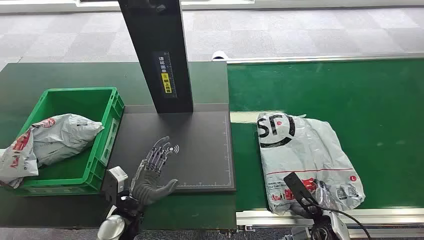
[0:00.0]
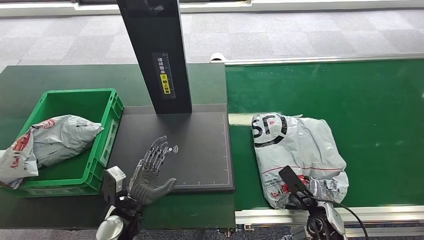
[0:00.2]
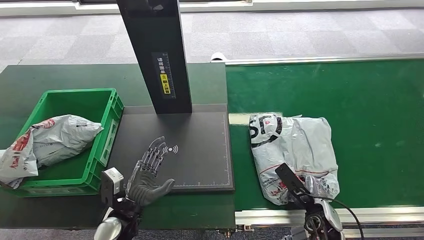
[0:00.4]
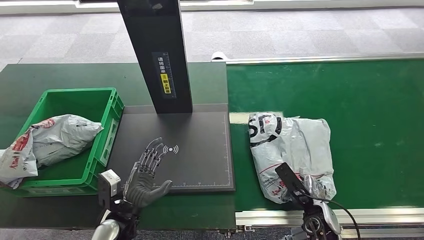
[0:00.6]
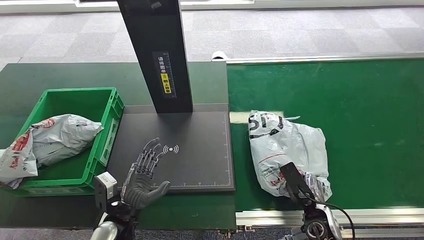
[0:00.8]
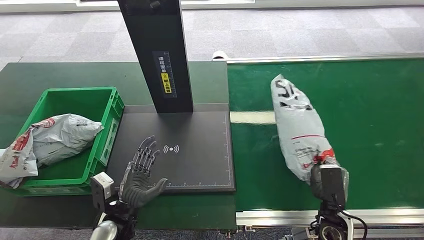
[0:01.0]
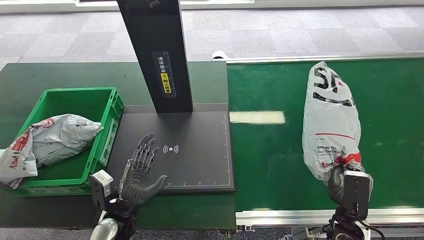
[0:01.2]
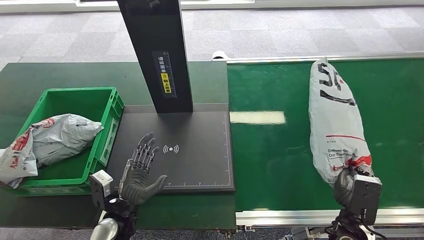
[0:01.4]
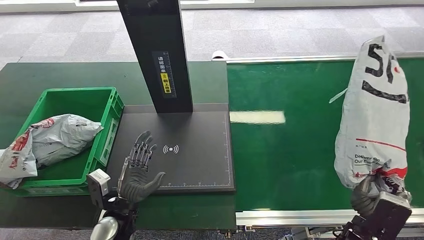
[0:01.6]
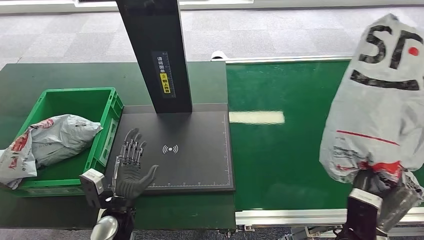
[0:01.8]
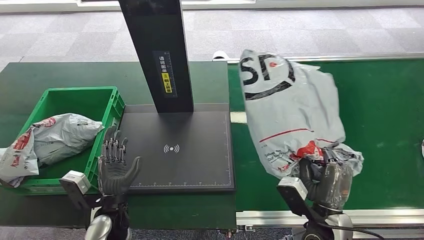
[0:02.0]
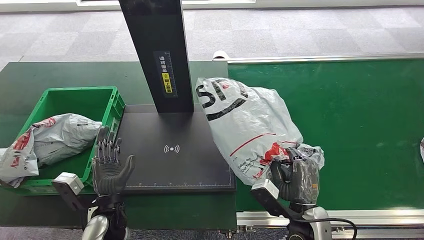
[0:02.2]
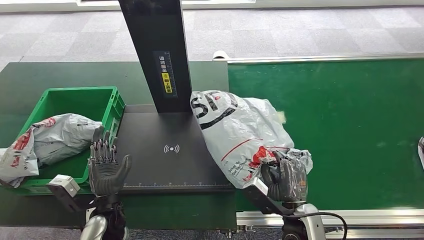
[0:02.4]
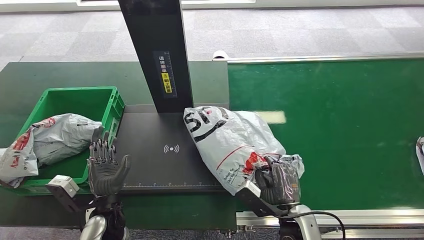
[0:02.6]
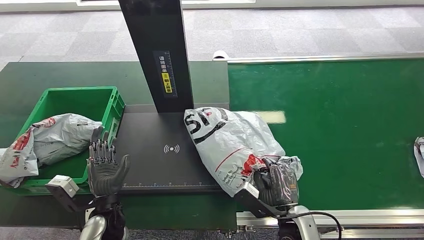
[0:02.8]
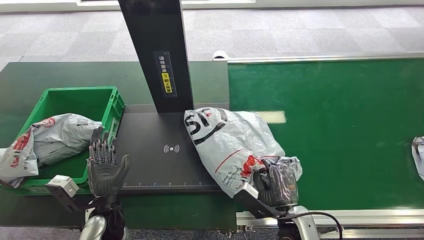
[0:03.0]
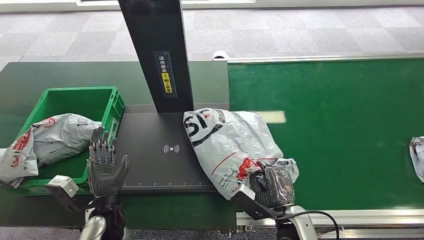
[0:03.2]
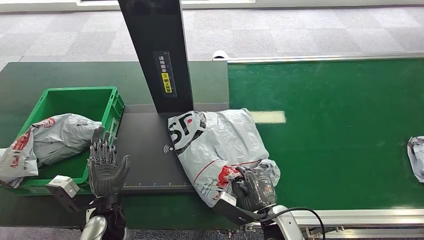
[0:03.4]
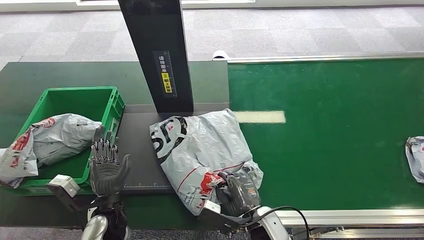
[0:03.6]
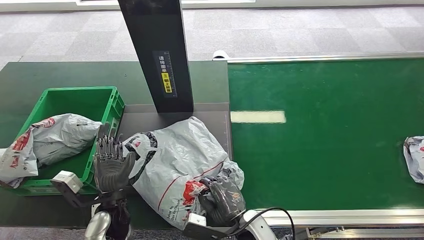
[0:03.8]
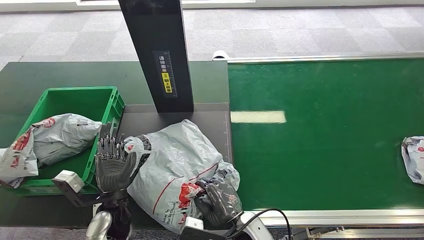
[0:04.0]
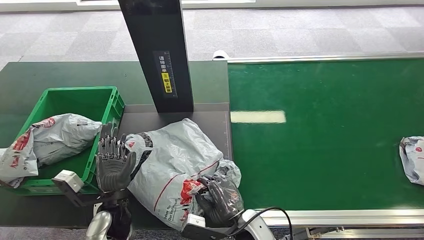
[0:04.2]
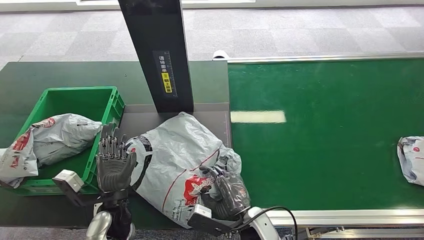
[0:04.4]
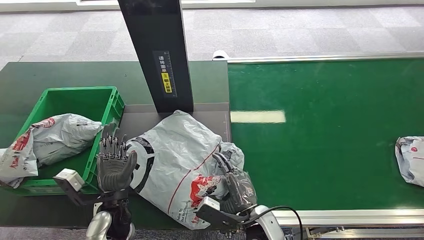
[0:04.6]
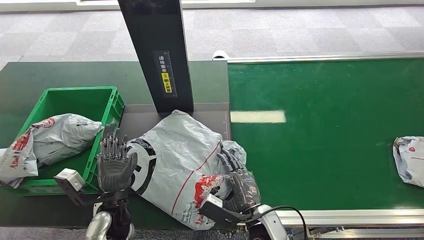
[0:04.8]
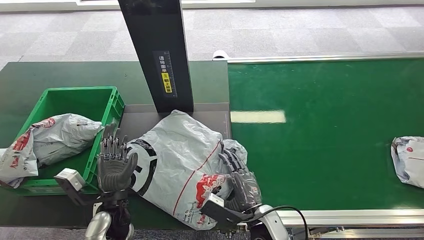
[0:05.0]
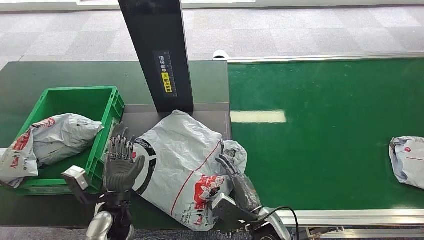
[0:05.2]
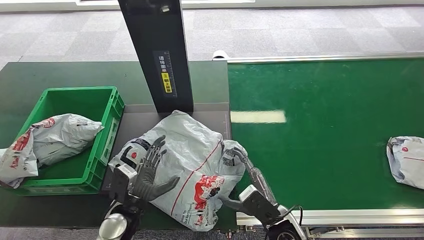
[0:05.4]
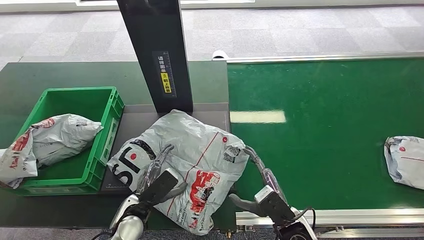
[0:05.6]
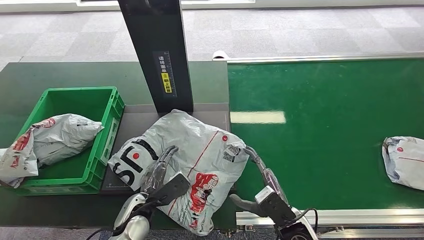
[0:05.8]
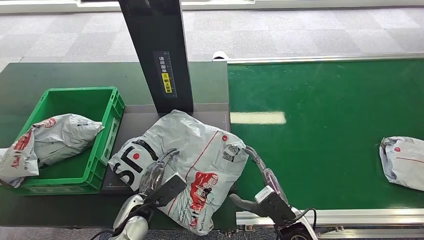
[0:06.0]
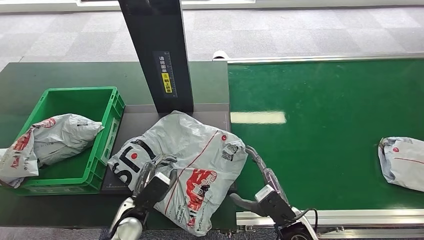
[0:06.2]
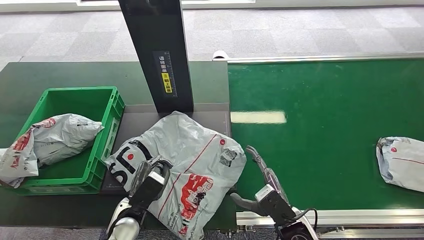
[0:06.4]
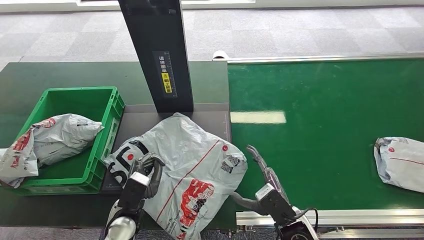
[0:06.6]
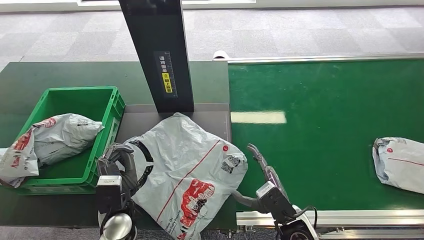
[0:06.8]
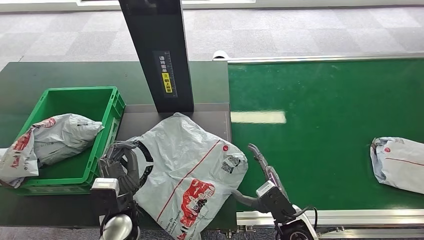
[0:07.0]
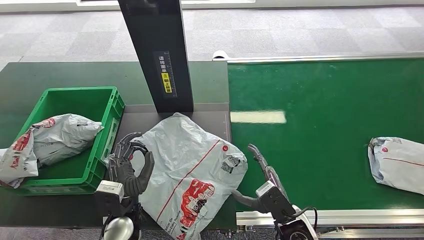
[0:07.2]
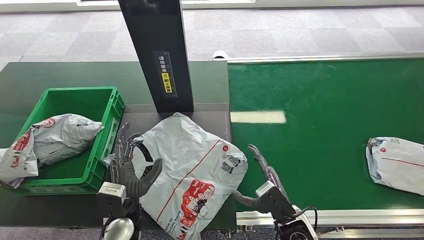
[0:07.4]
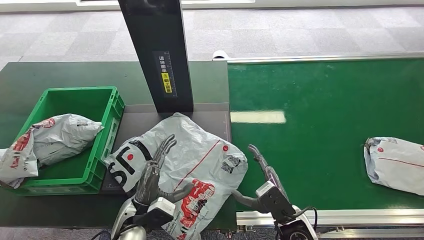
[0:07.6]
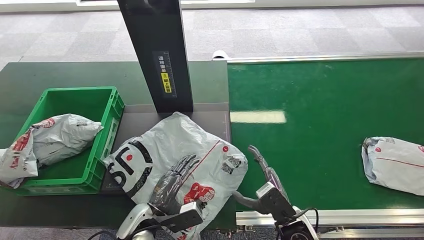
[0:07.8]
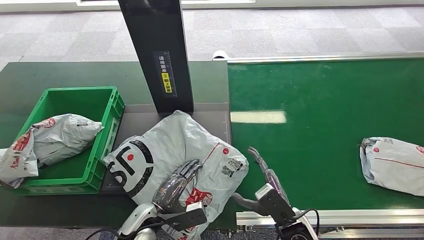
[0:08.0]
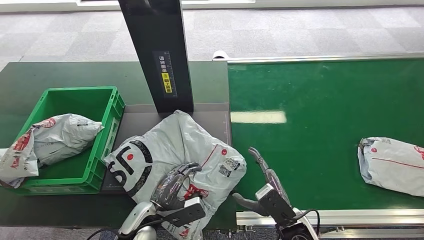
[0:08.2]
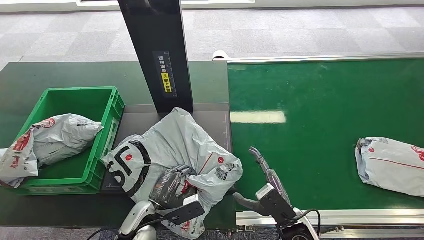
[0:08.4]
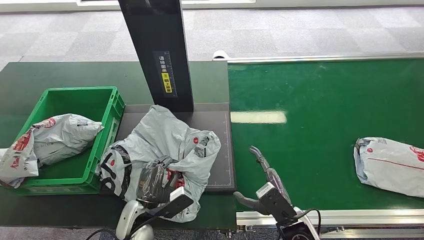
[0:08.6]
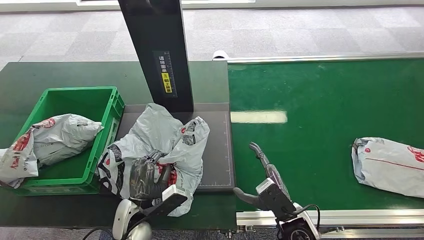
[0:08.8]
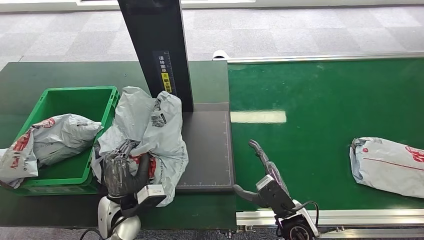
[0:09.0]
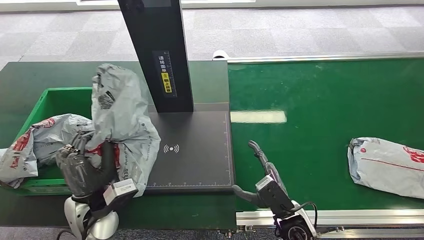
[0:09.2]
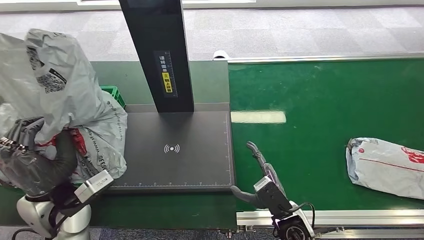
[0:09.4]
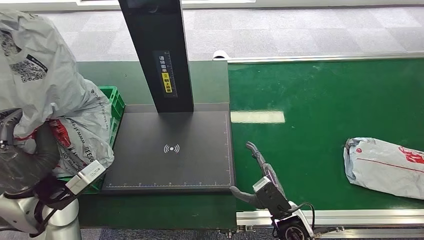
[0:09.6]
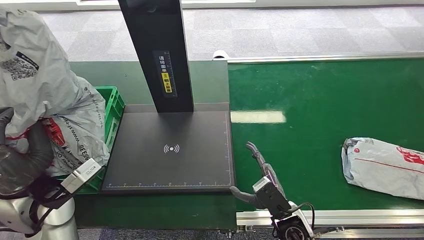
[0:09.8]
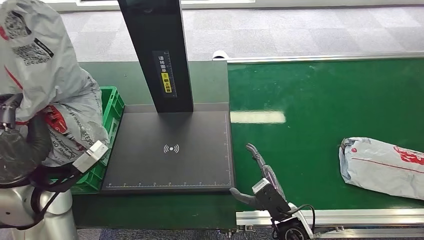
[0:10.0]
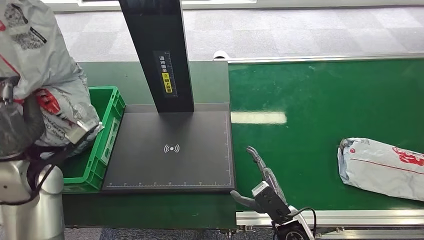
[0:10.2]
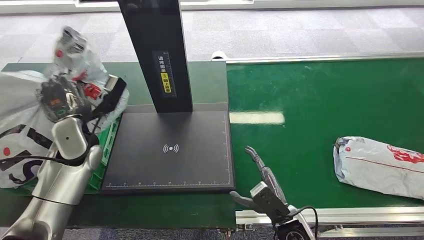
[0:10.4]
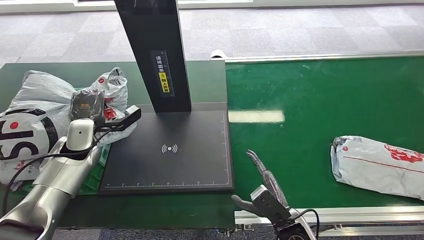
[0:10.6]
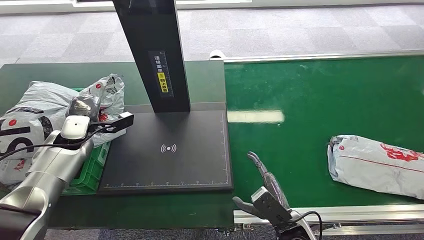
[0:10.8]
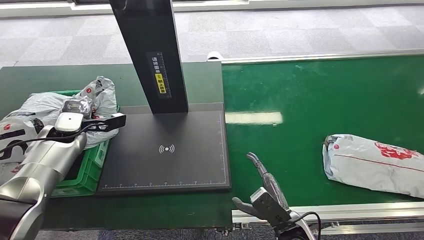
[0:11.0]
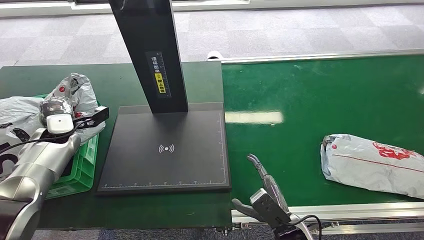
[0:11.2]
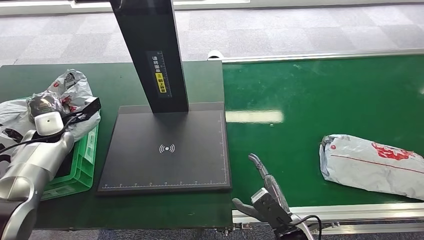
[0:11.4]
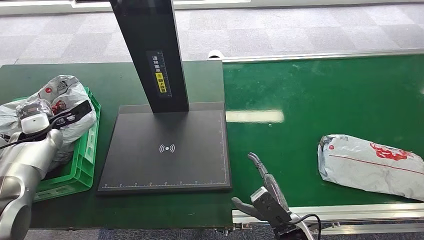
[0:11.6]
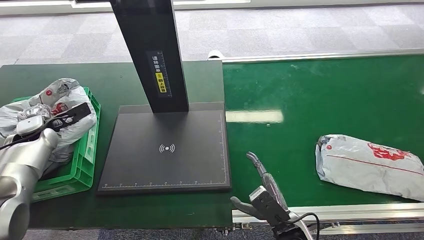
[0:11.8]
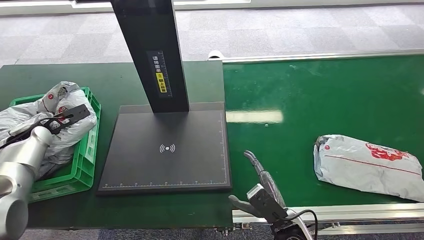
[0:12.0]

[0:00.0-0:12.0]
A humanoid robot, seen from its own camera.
Step, 0:00.0 to 0:02.0: Pick up the package from the conveyor belt.
Step, 0:02.2 to 0:05.6: Place the package onto the inbound machine.
Step, 0:05.8 to 0:09.6: Pick up the package from the inbound machine.
0:03.0 to 0:04.4: The right hand shifts roughly 10 cm to the left.
0:04.4 to 0:06.0: The right hand shifts roughly 10 cm to the right.

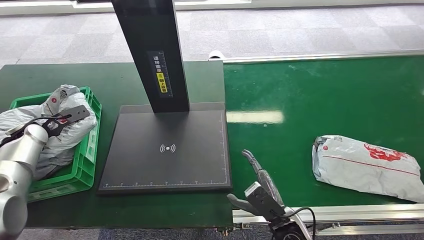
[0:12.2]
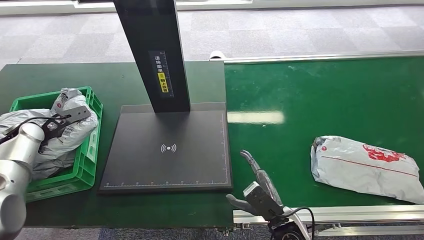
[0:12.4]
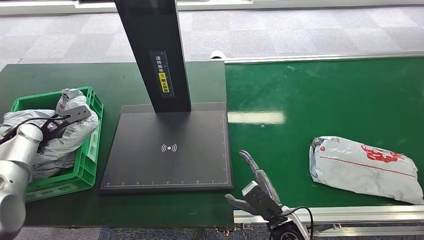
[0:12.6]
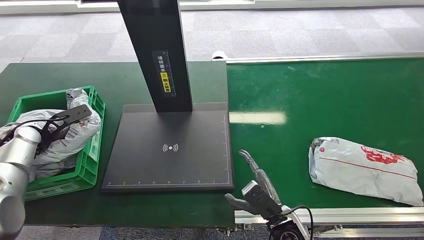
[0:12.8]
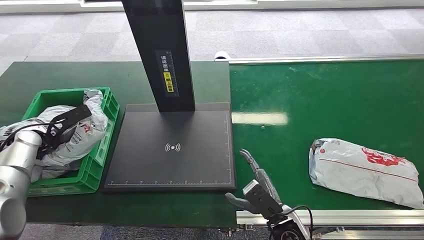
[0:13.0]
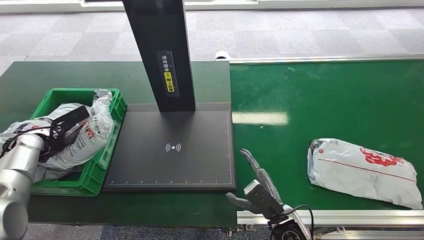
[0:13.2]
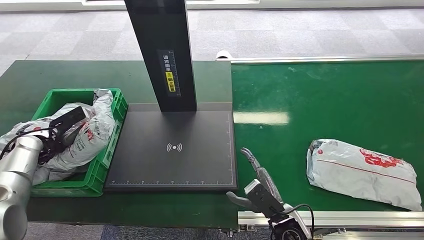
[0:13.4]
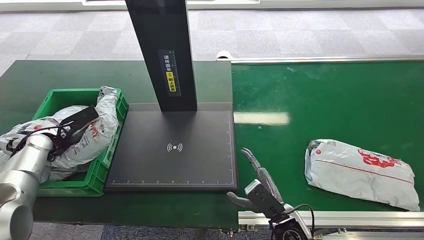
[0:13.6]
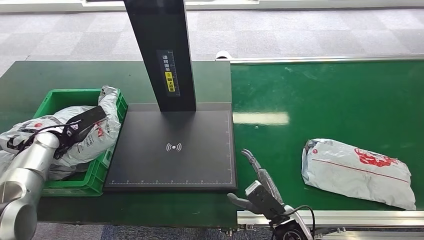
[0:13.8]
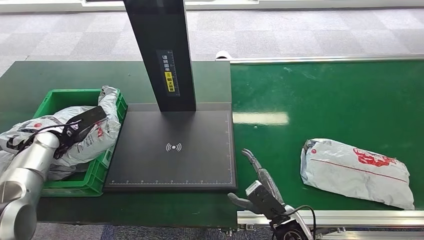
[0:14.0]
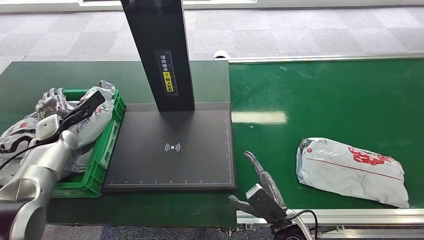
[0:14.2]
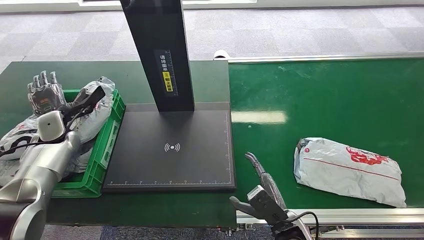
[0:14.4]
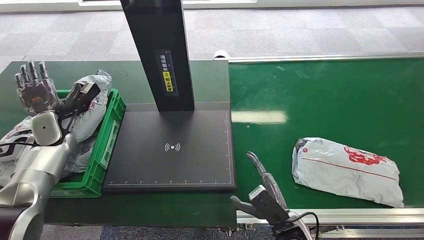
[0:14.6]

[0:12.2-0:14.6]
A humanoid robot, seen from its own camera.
Step, 0:12.2 to 0:14.6: Place the package into the parcel locker.

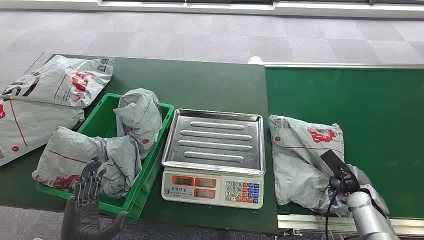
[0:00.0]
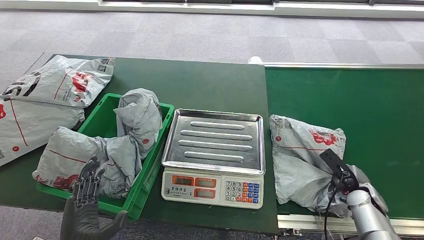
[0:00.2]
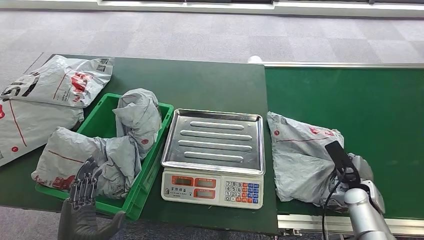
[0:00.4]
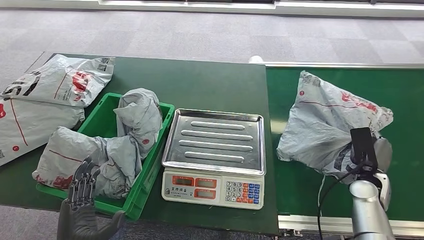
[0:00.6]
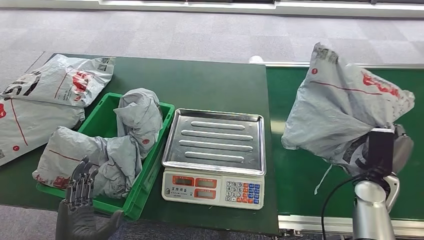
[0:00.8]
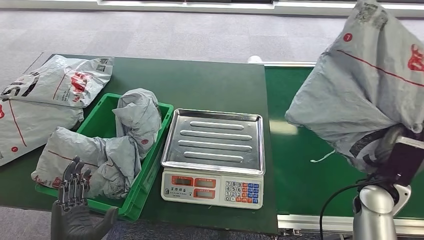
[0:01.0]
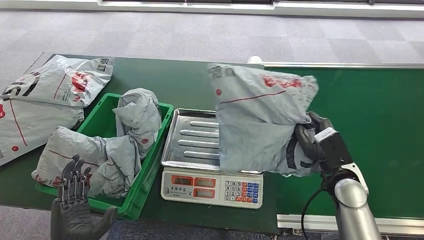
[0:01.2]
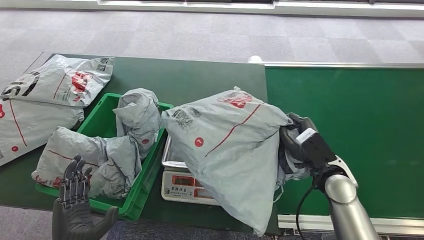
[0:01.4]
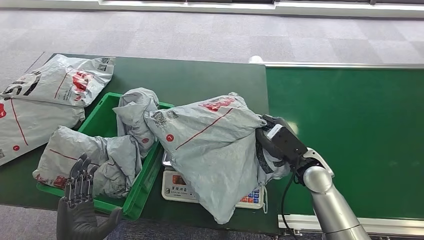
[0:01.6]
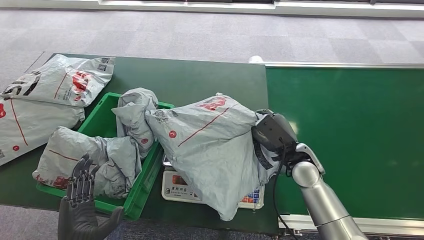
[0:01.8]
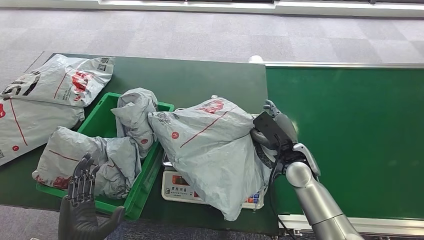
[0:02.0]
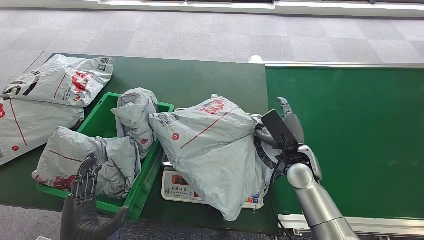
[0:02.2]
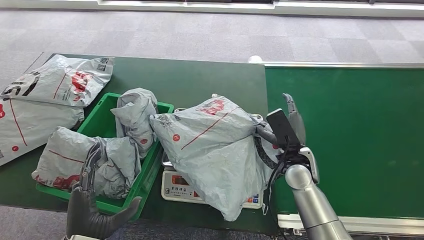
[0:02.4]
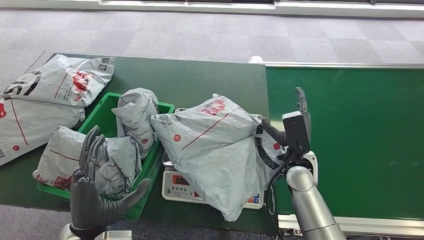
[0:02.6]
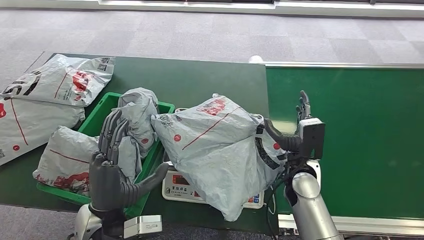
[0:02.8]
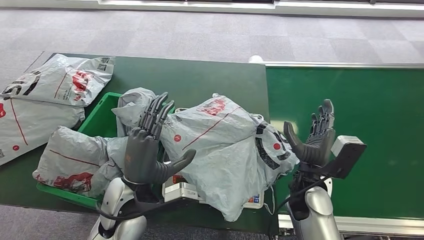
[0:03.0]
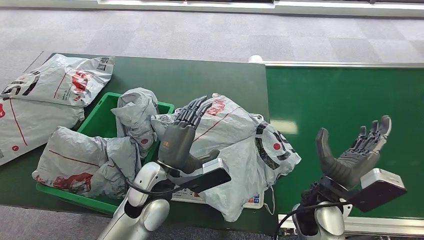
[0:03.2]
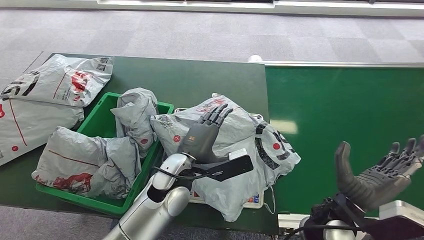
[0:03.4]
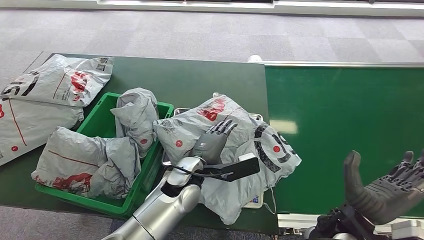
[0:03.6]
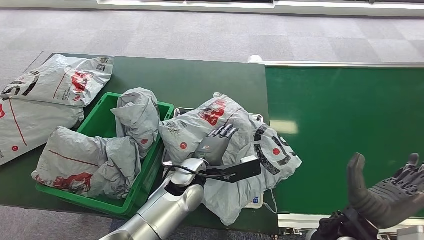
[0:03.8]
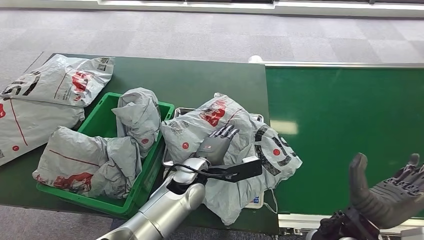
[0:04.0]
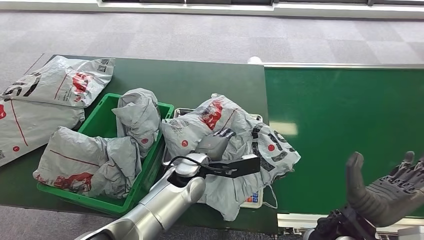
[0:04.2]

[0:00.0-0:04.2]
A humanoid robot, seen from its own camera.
Step, 0:00.0 to 0:01.0: Pick up the package from the conveyor belt.
Step, 0:01.2 to 0:03.4: Place the package onto the inbound machine.
